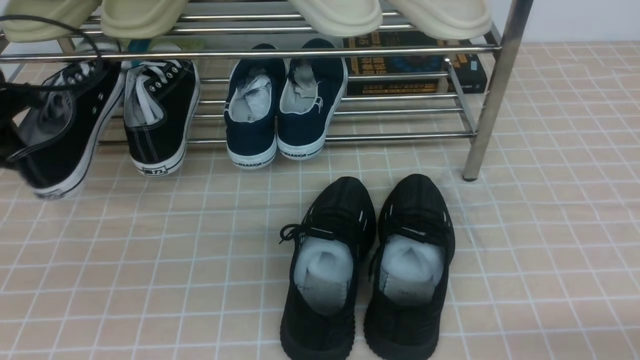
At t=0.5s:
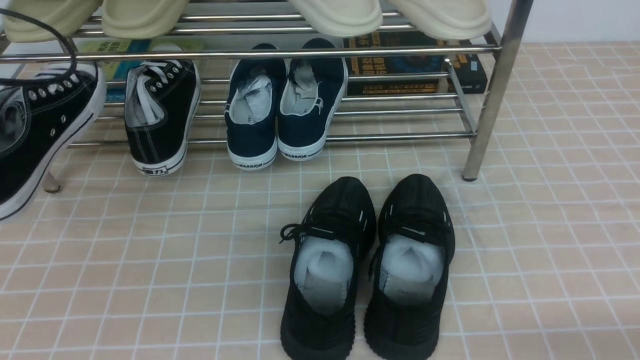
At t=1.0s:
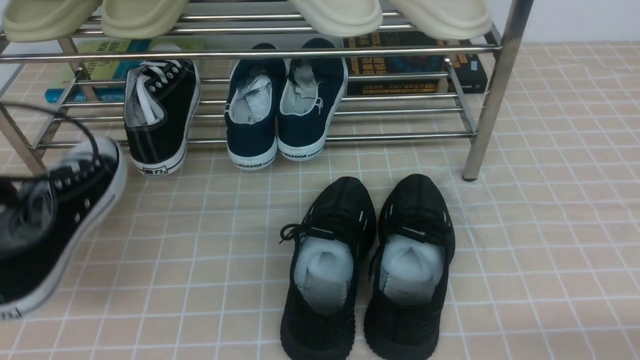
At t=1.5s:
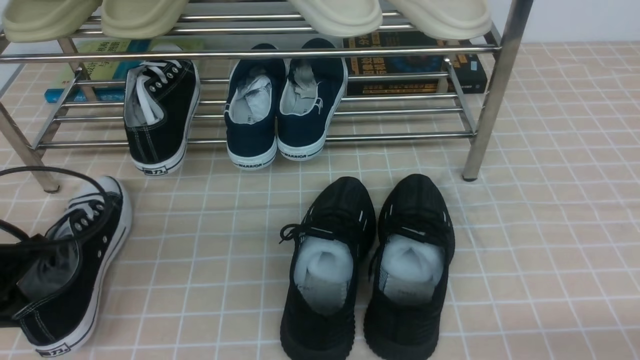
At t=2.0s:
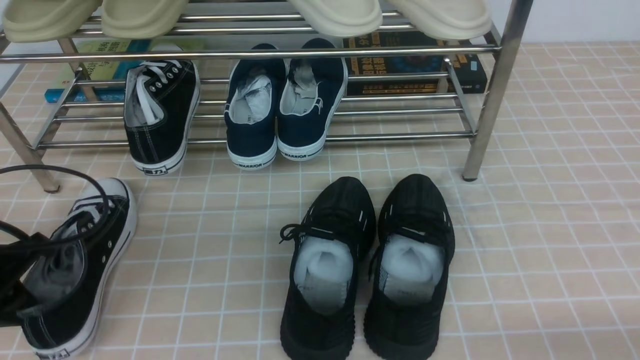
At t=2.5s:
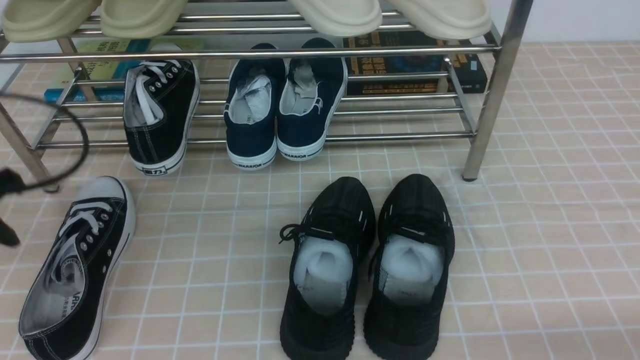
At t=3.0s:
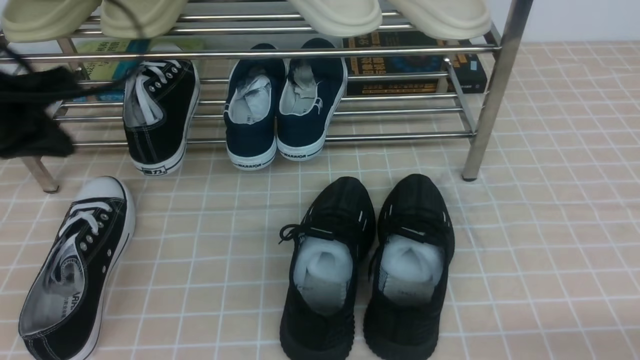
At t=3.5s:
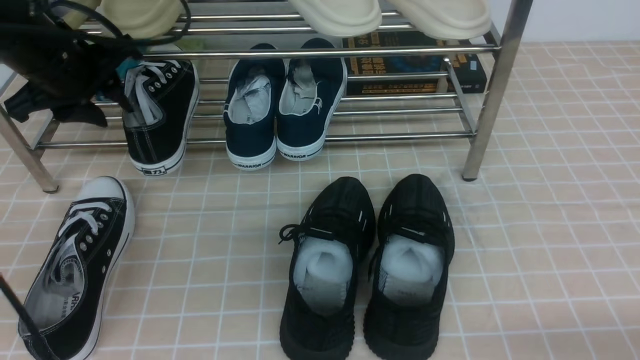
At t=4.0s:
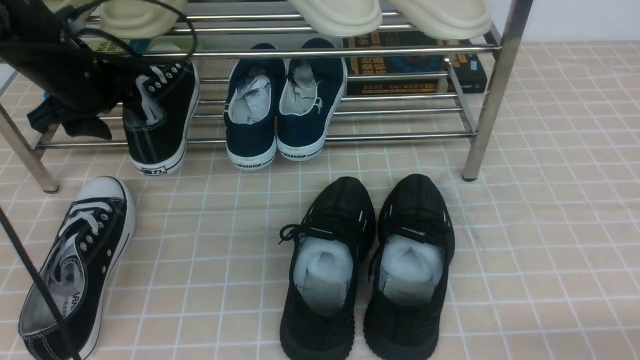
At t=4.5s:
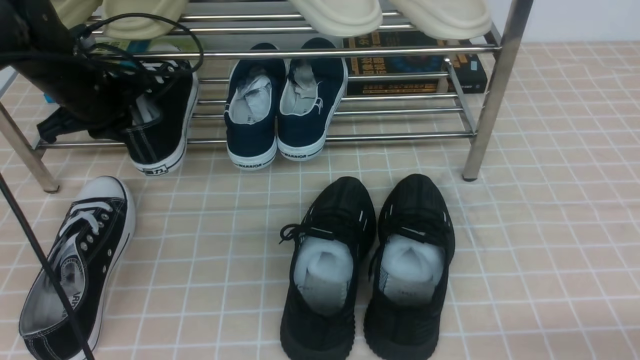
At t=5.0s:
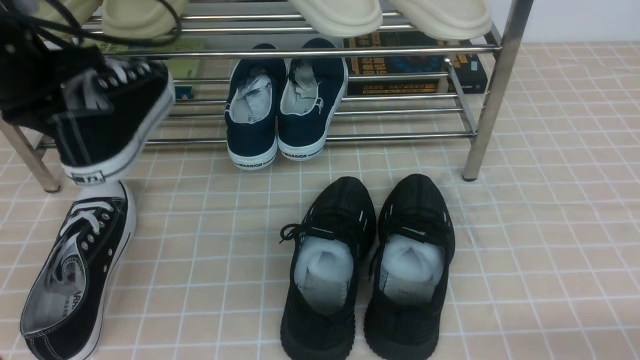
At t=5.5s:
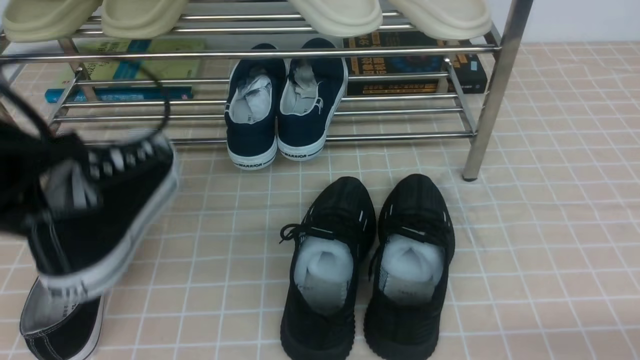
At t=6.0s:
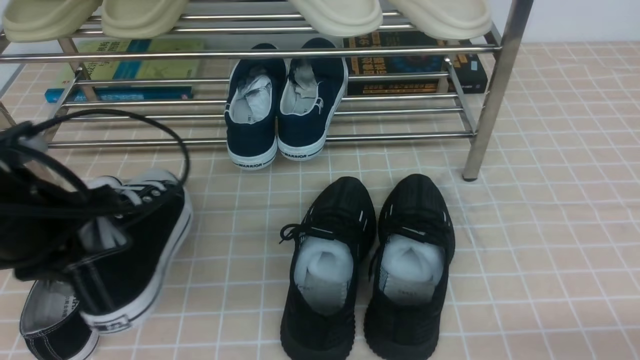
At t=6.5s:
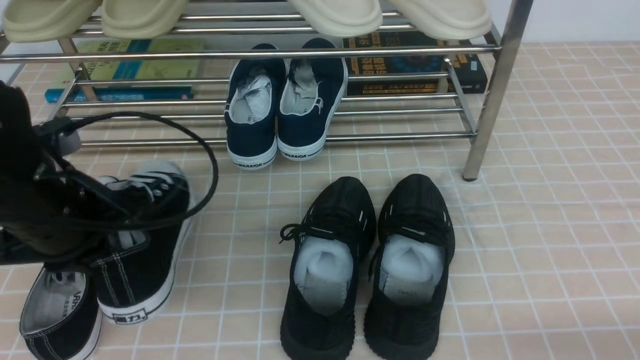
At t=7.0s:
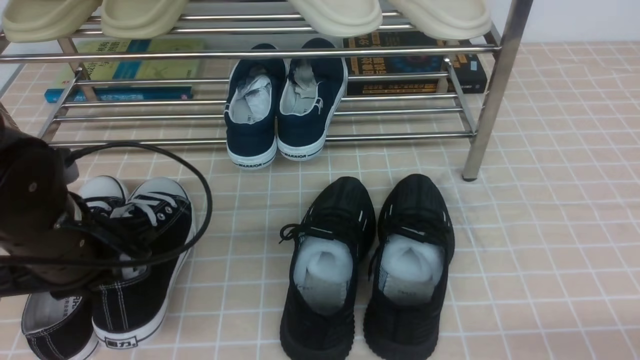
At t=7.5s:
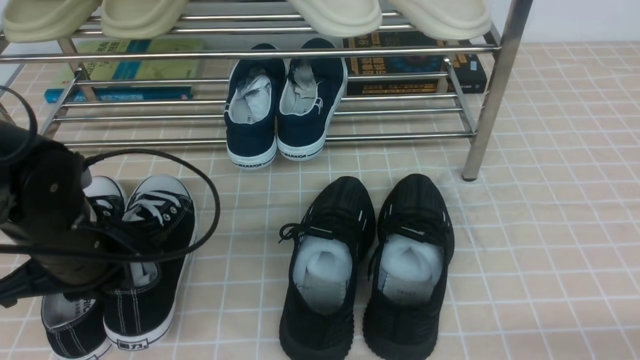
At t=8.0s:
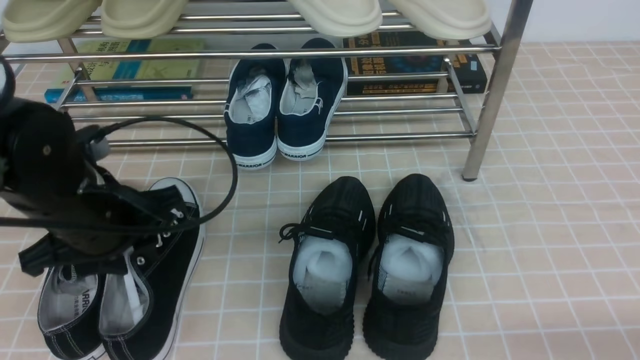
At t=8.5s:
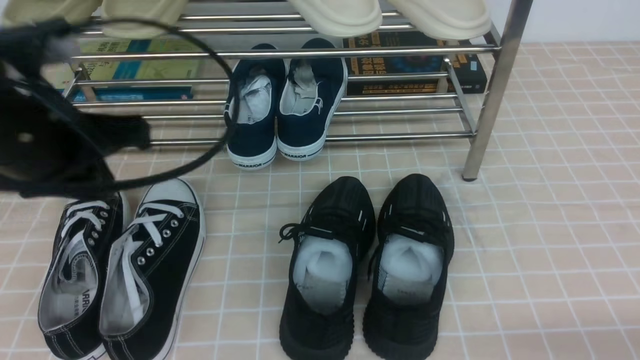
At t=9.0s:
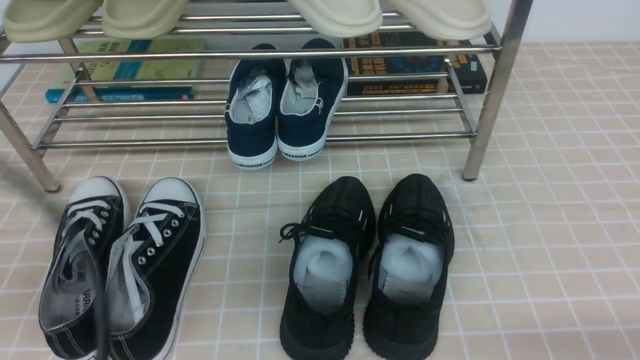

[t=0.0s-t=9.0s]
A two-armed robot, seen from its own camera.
Step, t=0.0s to t=2.0s: Use your left arm to remove the clamped shoe from the shoe rack and put it down.
Step, t=2.5s to t=4.5s: use the left arm to clamp a shoe on the left side of the shoe rack.
Step, t=5.0s to t=7.5s: Use your left arm to remove the clamped shoe from the shoe rack and put it down.
t=0.0s to t=2.0s: The left gripper moves backward and downward, about 15 cm.
t=2.0s to t=4.5s: The left gripper goes approximately 20 cm forward, and opens, then closes again.
t=4.5s to t=7.0s: The left gripper is displaced backward by roughly 20 cm.
t=7.0s to t=9.0s: The left gripper moves backward and upward, about 20 cm, and opens, then closes once more.

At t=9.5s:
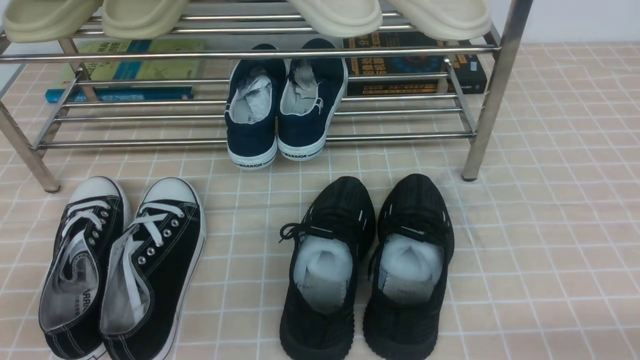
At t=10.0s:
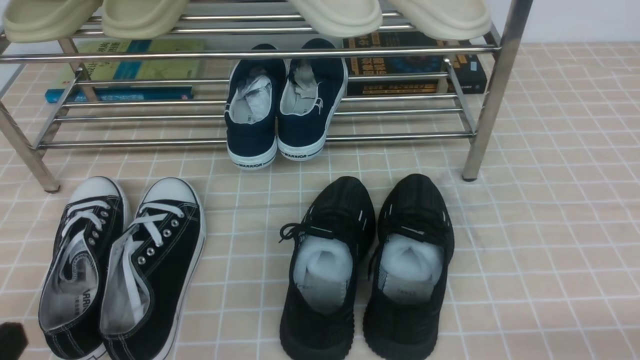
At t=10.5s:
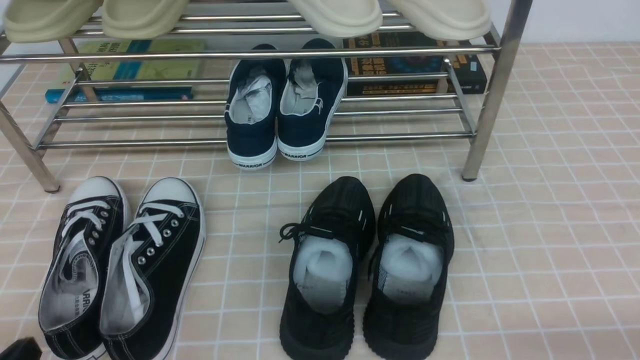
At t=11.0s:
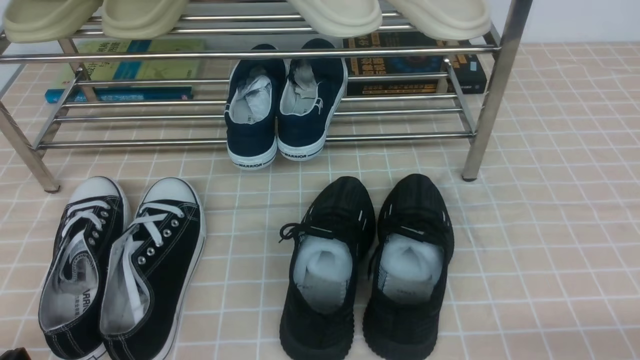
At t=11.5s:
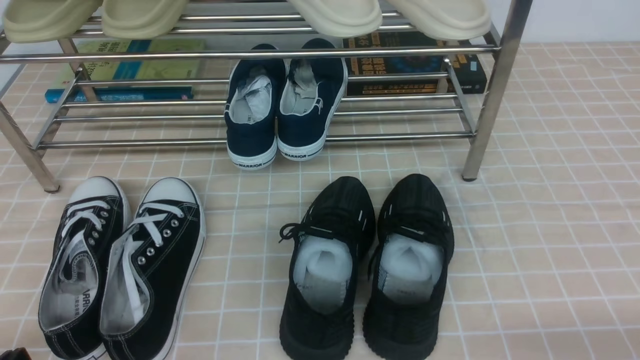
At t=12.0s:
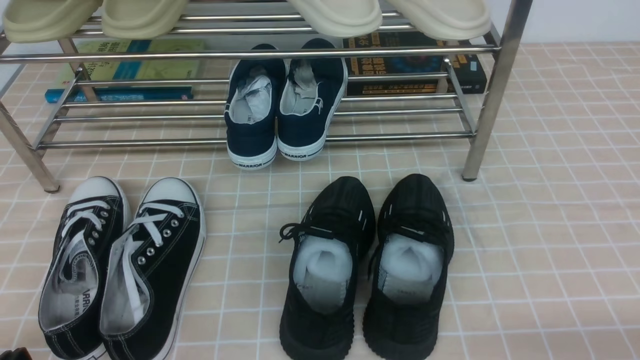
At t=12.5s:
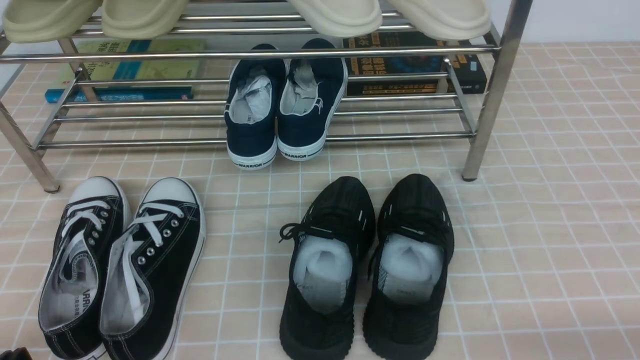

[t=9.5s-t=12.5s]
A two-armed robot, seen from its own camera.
t=11.0s to t=12.5s: The two grippers keep their place.

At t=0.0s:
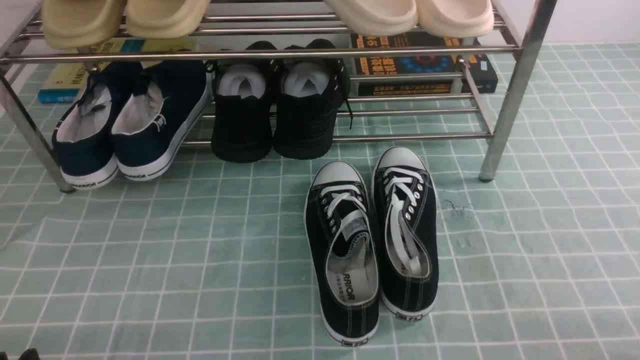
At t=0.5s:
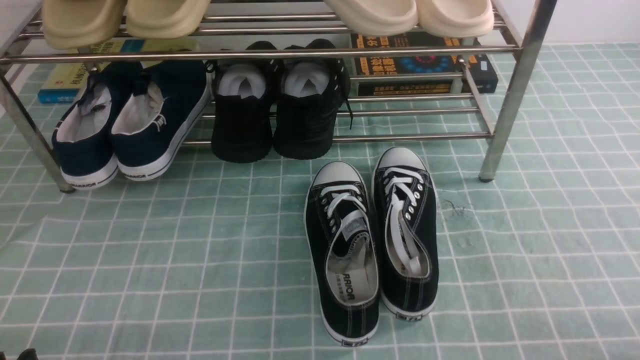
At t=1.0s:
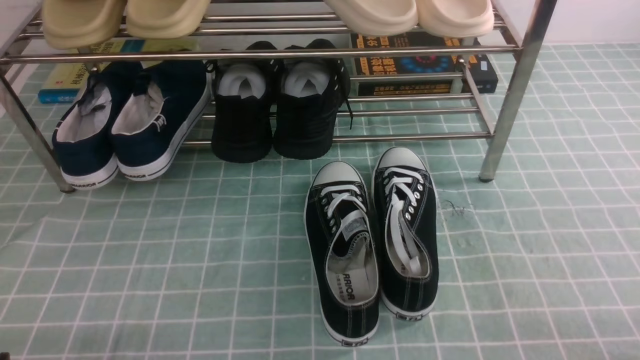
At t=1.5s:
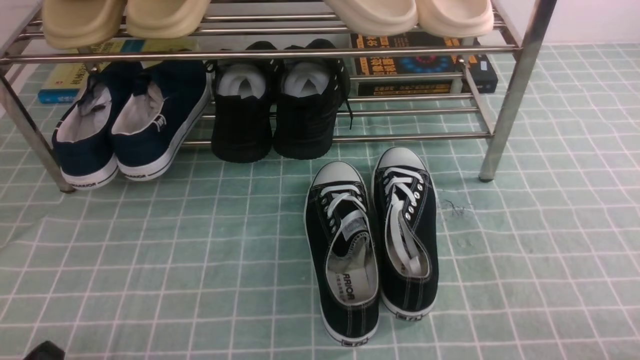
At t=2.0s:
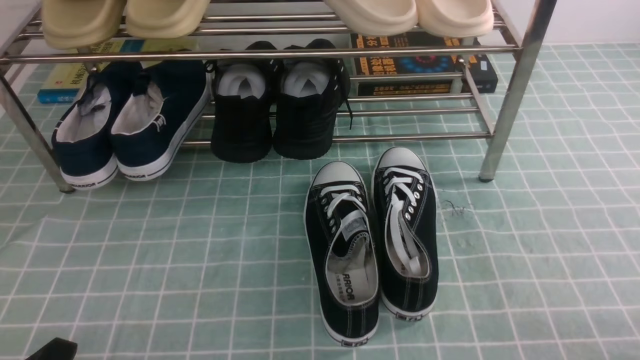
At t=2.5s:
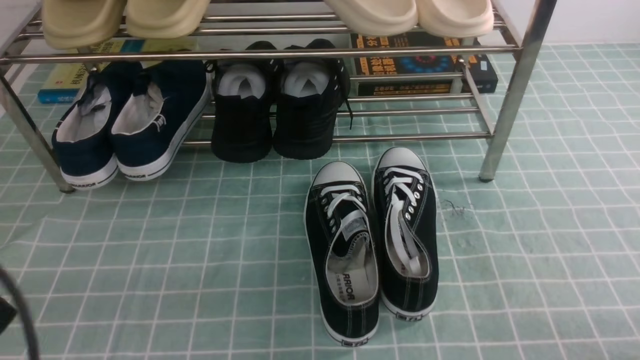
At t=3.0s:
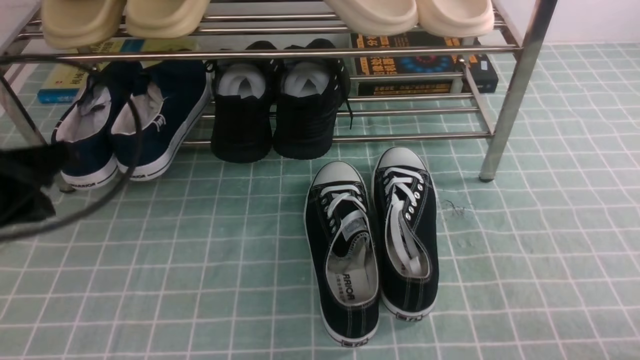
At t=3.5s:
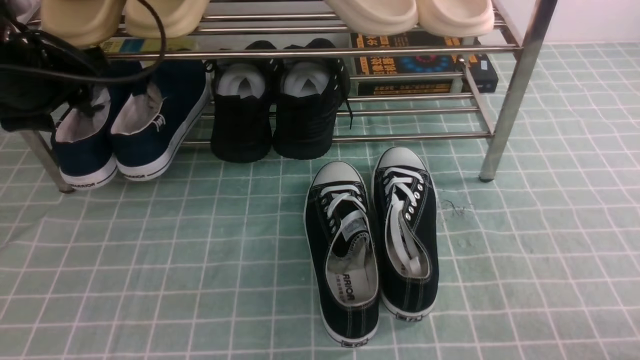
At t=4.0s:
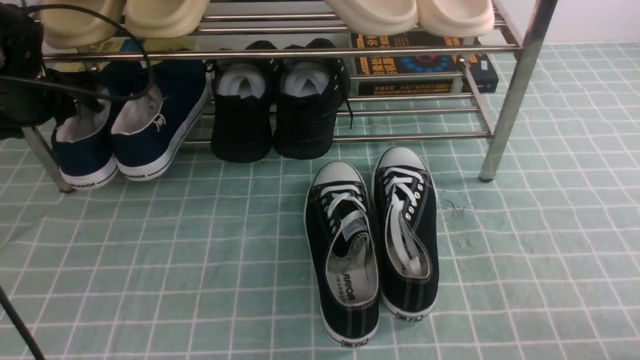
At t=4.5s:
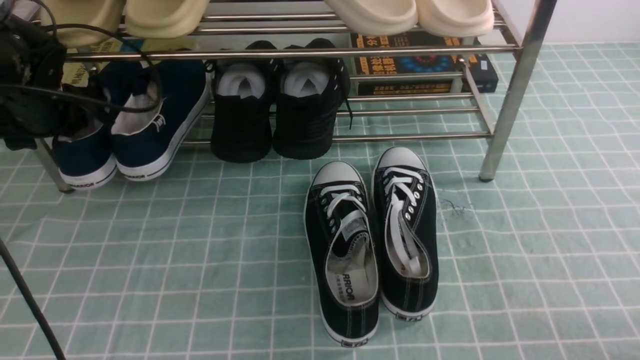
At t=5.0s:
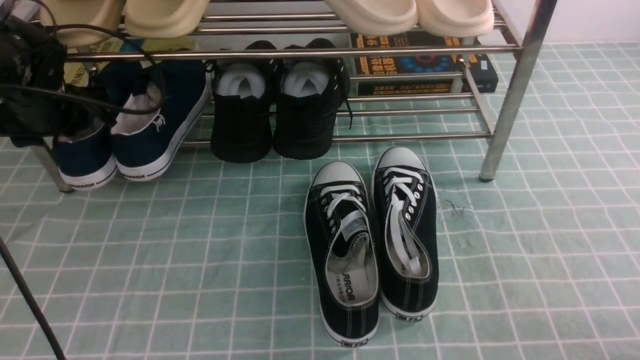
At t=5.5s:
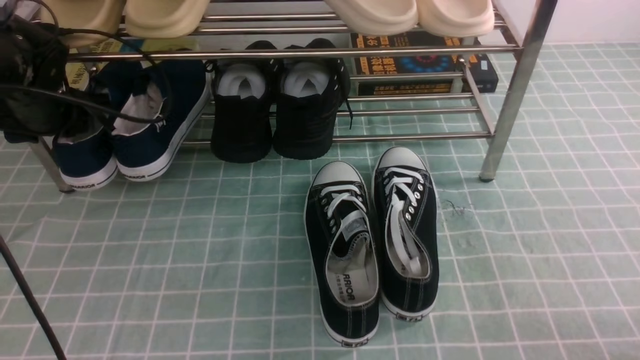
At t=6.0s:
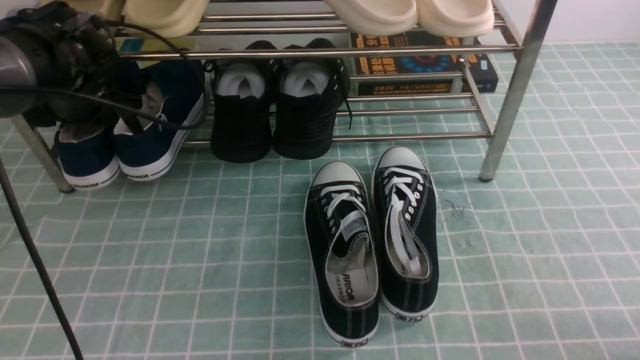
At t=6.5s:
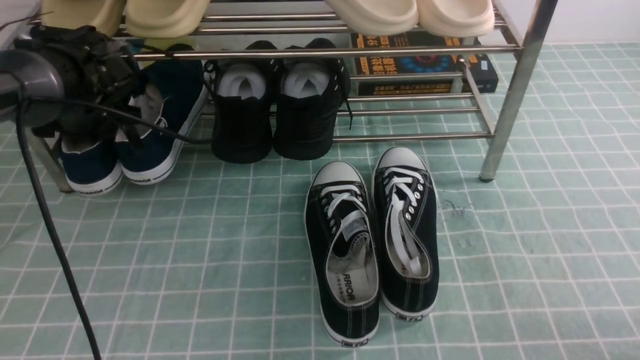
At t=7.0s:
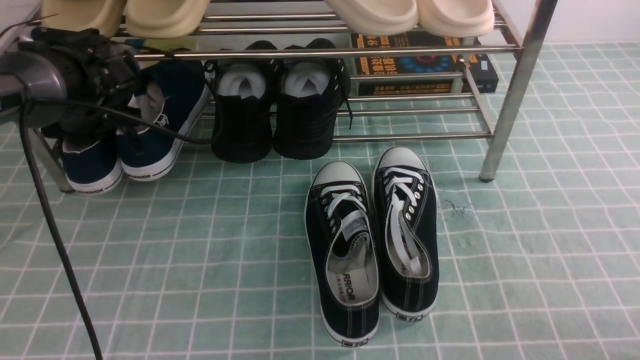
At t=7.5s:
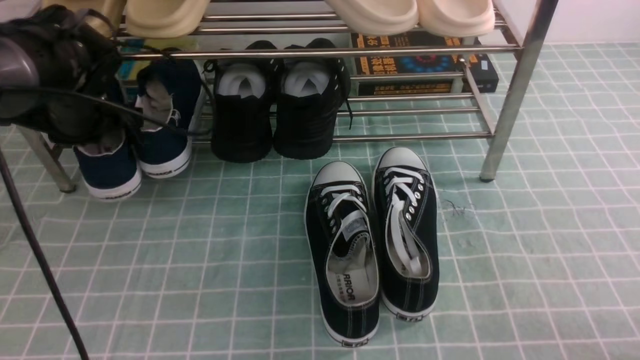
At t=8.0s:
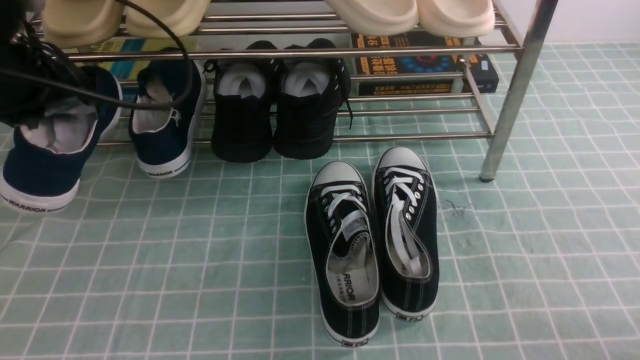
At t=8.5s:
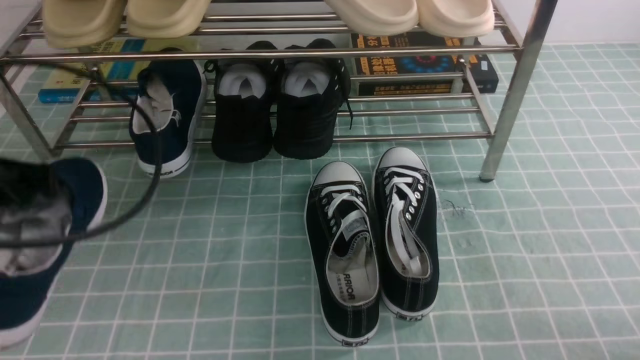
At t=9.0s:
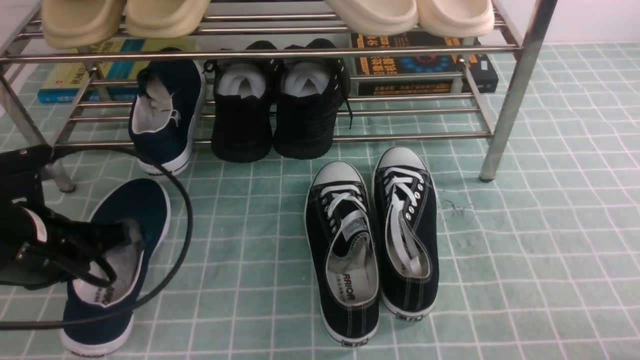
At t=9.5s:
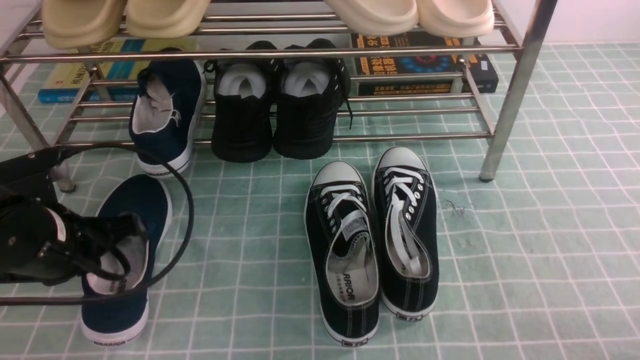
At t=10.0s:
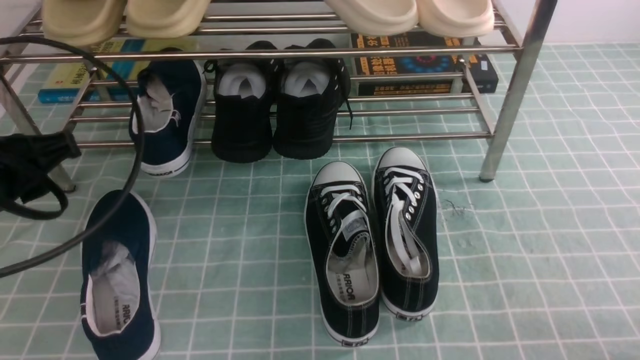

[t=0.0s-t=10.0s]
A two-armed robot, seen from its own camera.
Step, t=0.0s to t=7.0s: use the left arm to clamp a shoe on the left side of the shoe rack.
Step, t=7.5s to t=9.5s: Use your left arm to remove the clamped shoe from the shoe rack and put it down.
t=2.0s to t=4.0s: The left gripper is displaced forward by about 35 cm, and opens up.
t=4.0s to t=6.0s: The left gripper ends up approximately 5 cm from where it was.
t=6.0s to t=8.0s: The left gripper goes about 15 cm upward and backward, and closes its fingers.
t=8.0s to t=10.0s: The left gripper is displaced backward and downward by roughly 10 cm, and opens up.
